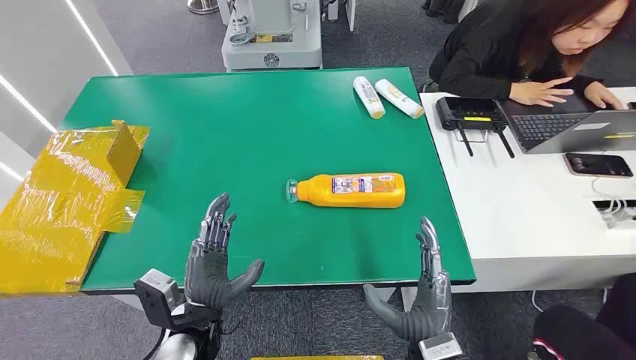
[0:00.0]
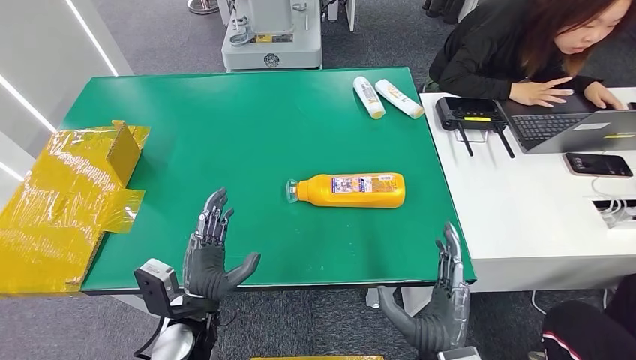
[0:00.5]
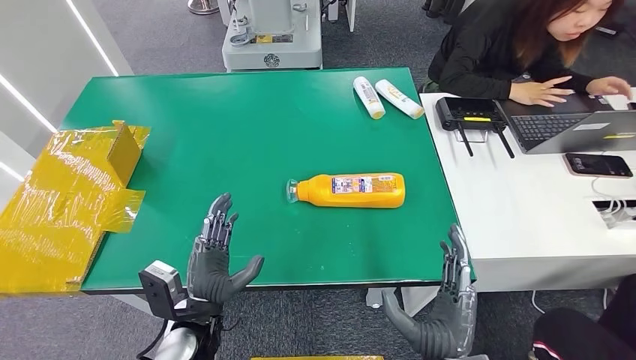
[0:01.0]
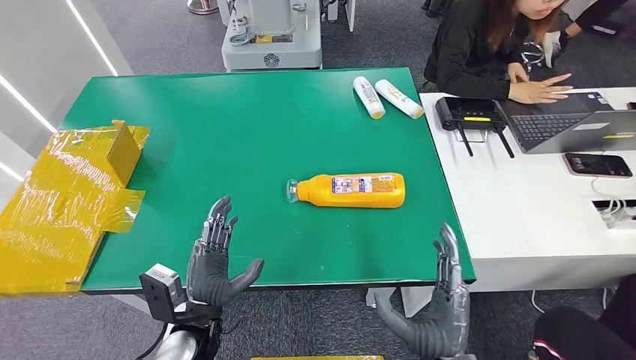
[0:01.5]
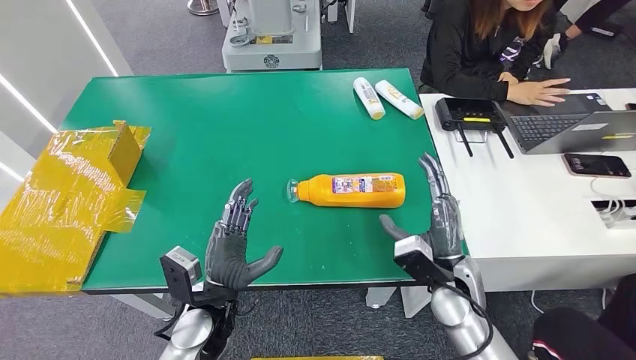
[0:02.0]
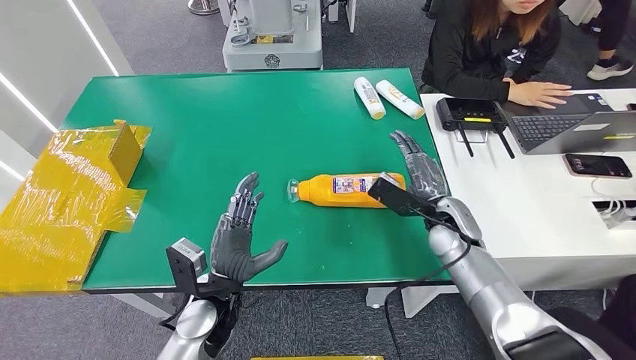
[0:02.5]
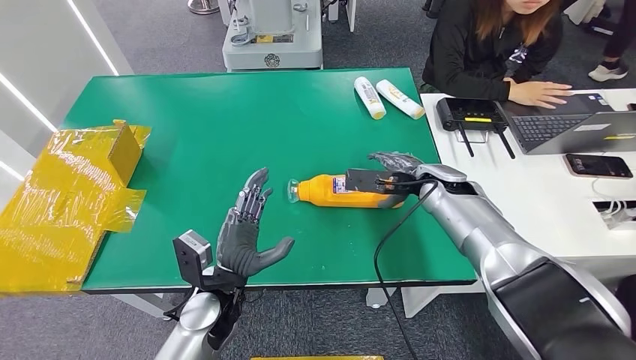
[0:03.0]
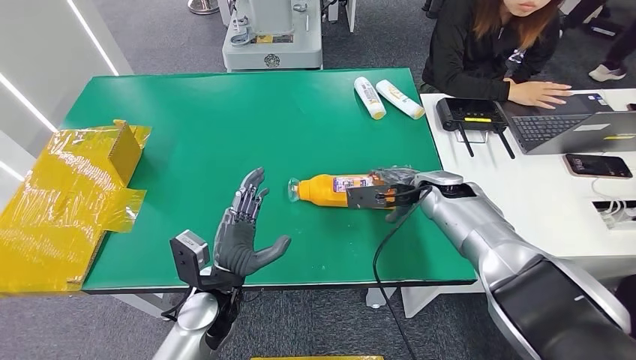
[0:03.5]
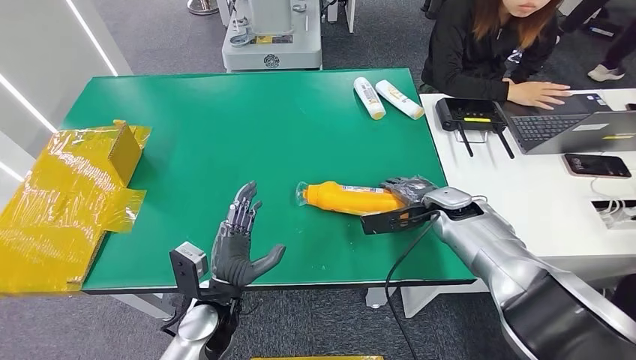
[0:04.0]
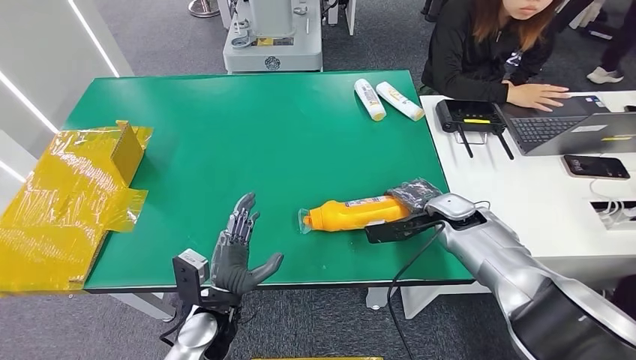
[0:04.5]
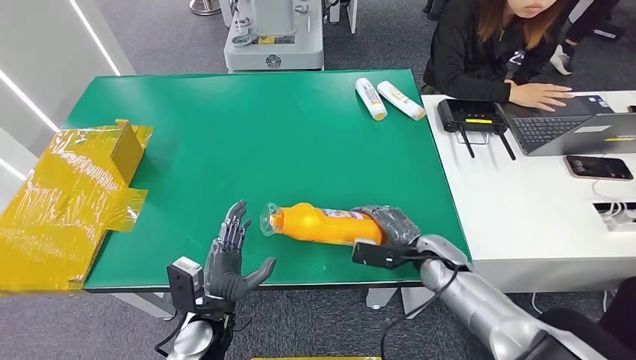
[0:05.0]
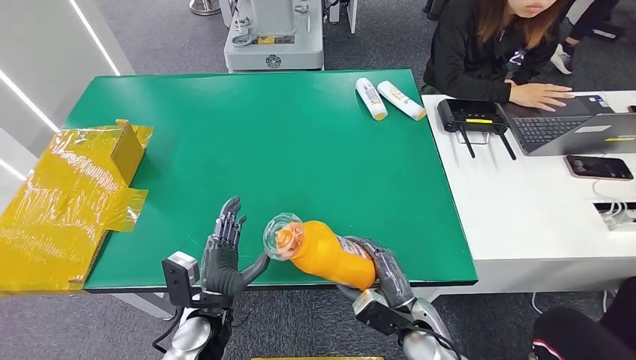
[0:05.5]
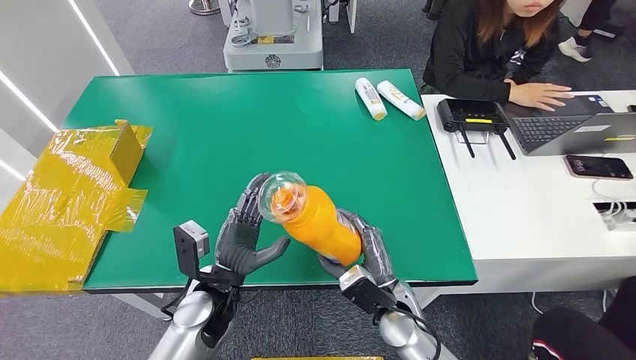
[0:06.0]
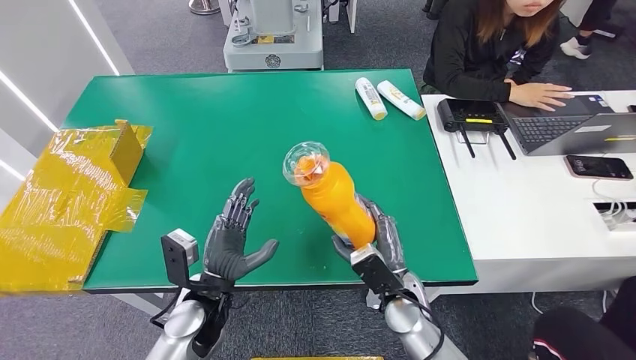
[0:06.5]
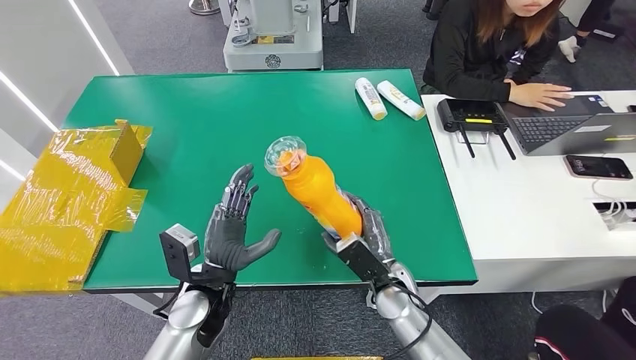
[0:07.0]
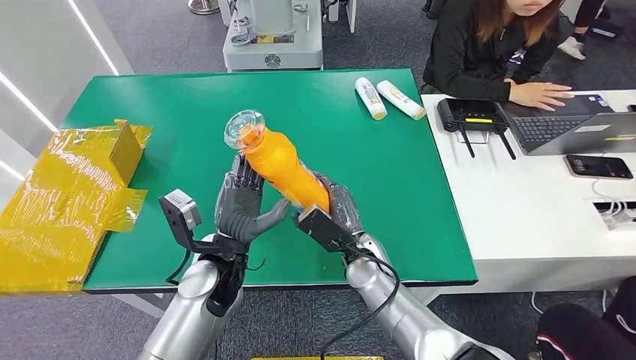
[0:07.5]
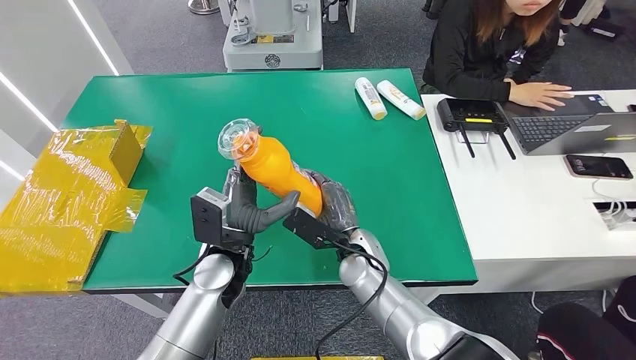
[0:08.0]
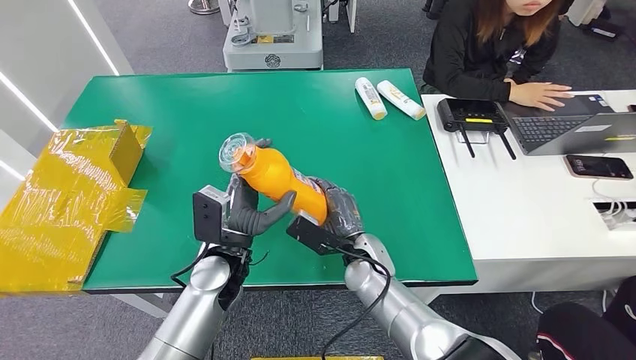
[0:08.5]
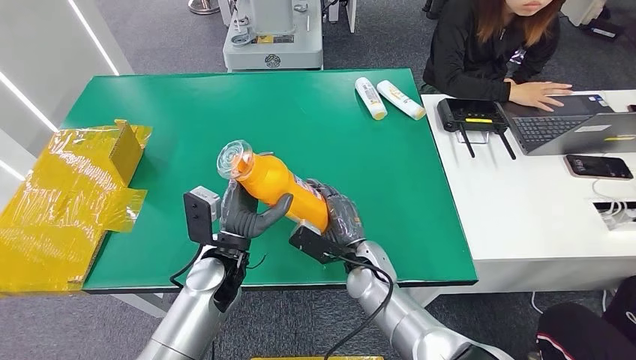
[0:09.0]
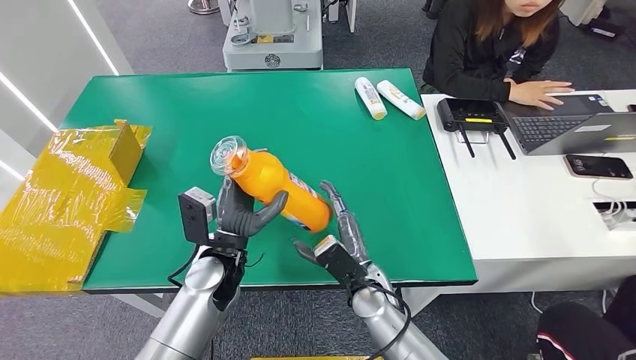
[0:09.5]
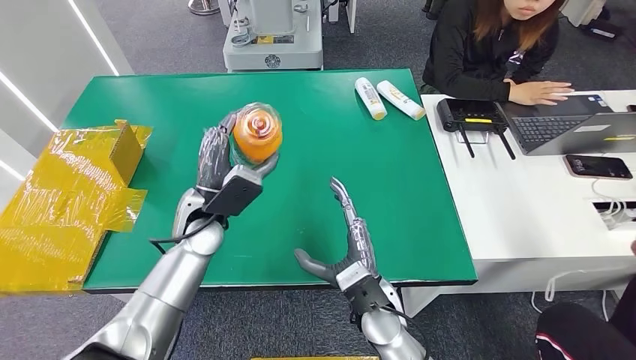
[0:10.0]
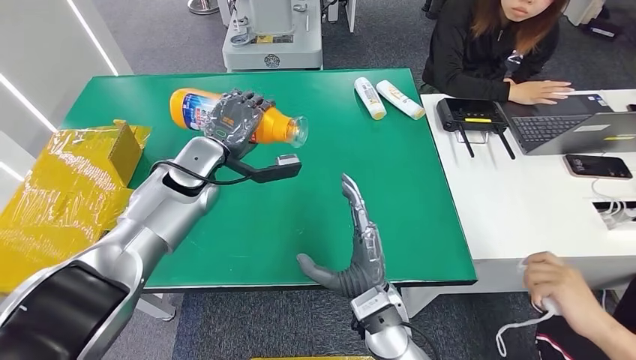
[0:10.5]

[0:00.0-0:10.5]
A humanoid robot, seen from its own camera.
Step, 0:00.0 to 0:05.5: Pick up the bottle from the table.
0:02.0 to 0:04.0: The right hand travels forward by some 15 cm.
0:06.5 to 0:08.5: The left hand shifts some 5 cm forward. Meanwhile the right hand shifts some 10 cm to the left and forward.

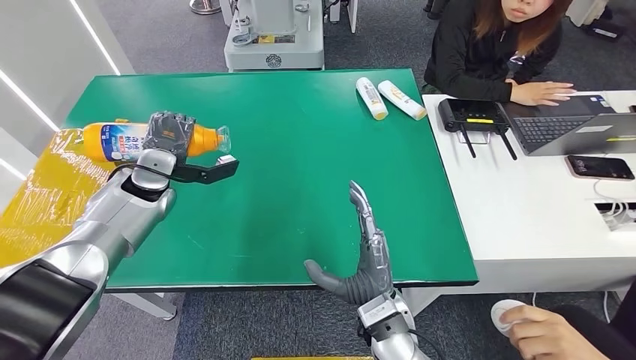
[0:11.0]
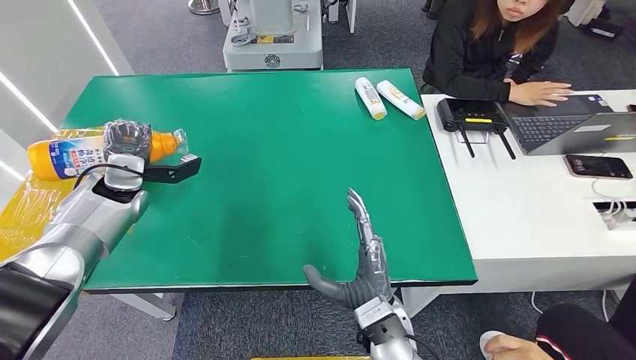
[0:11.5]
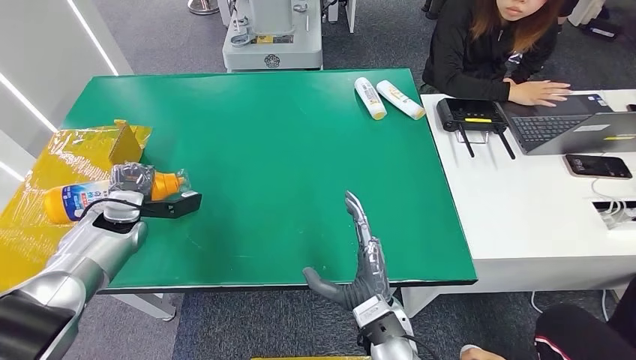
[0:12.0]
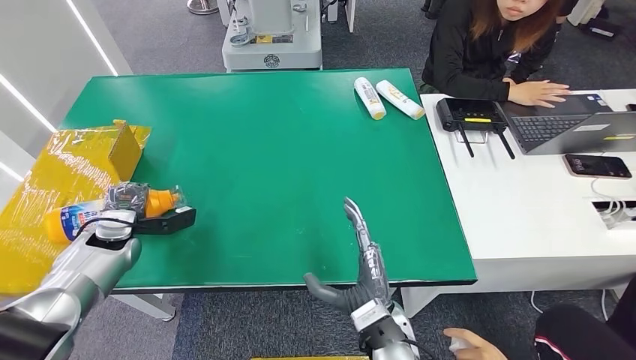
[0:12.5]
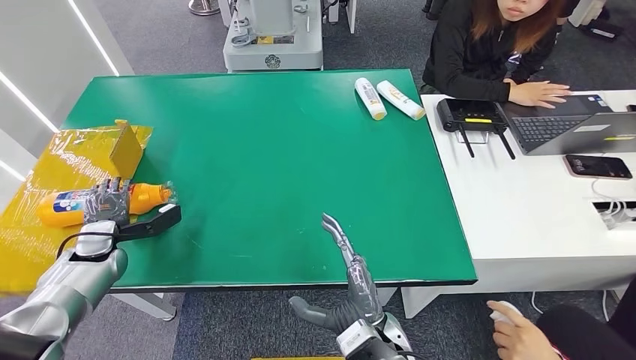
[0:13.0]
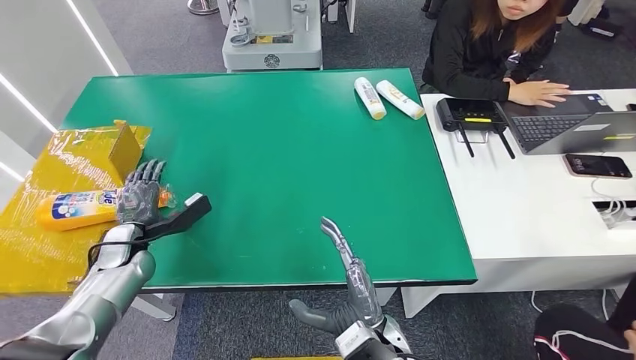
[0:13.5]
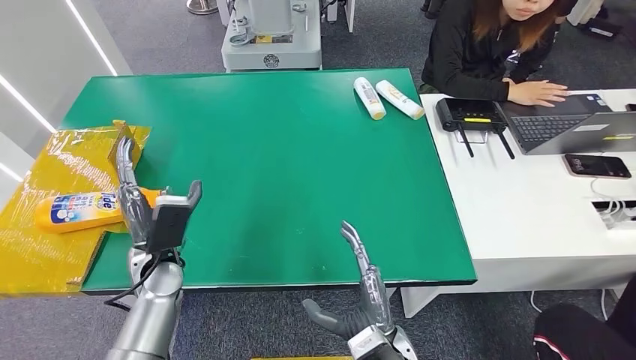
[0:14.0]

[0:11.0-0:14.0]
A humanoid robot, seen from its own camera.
Step, 0:11.0 to 0:14.0: Turn the bottle to the front side.
0:12.5 to 0:14.0: The left hand shifts some 15 cm to the right and backward.

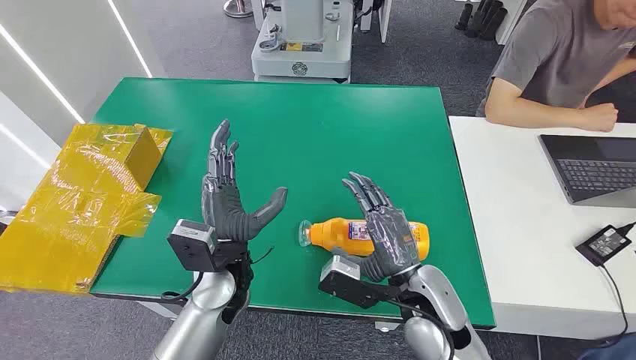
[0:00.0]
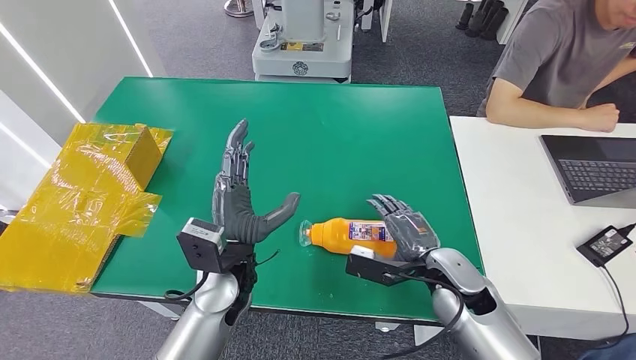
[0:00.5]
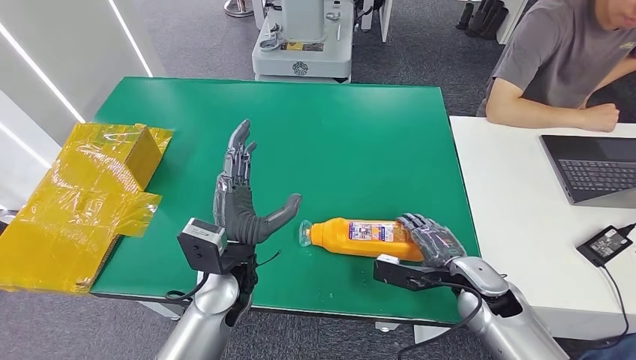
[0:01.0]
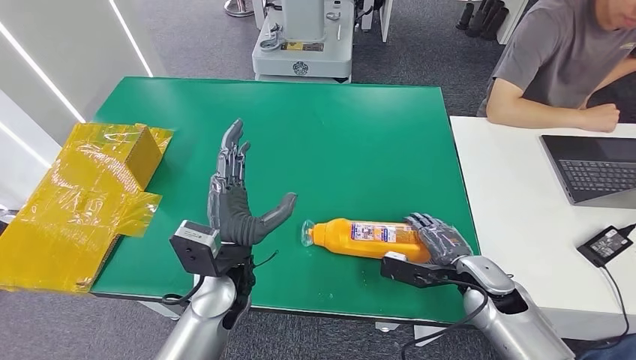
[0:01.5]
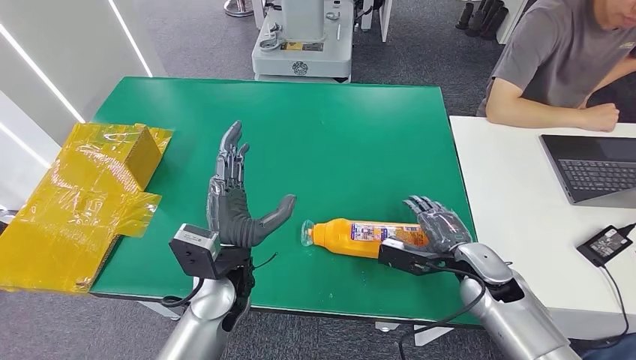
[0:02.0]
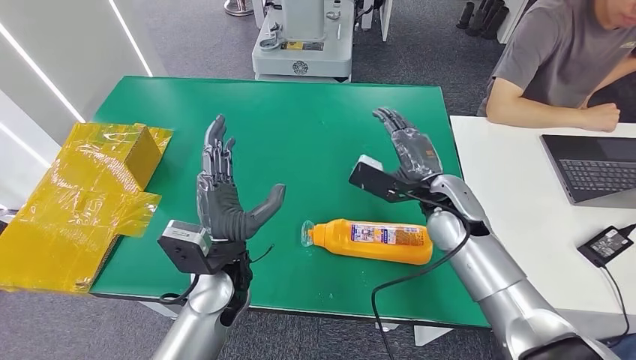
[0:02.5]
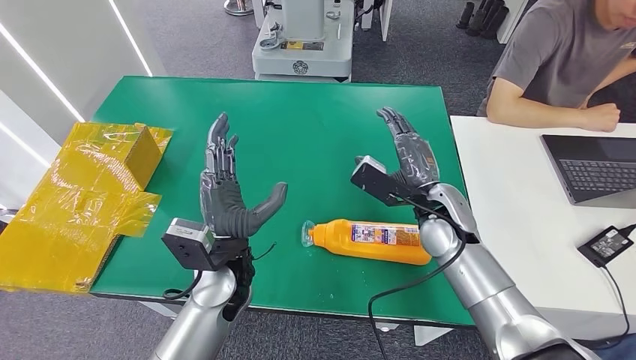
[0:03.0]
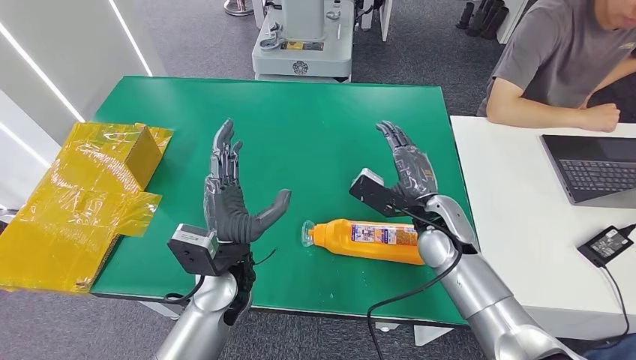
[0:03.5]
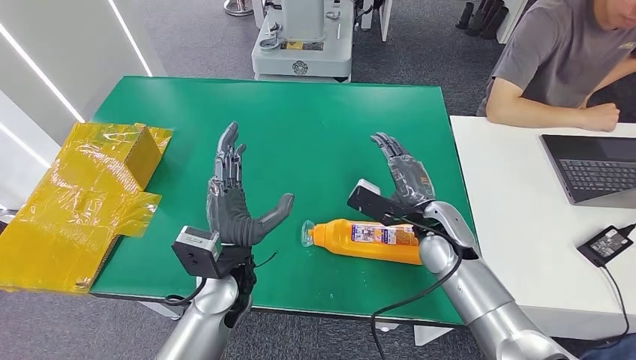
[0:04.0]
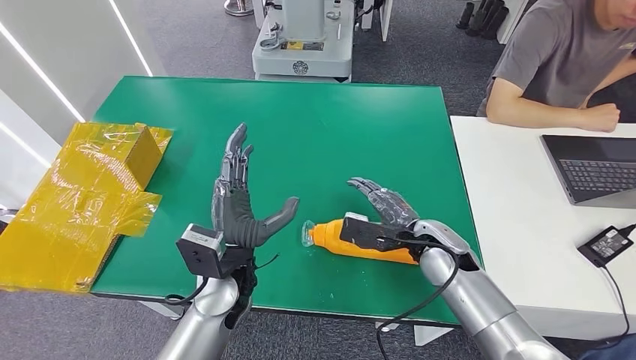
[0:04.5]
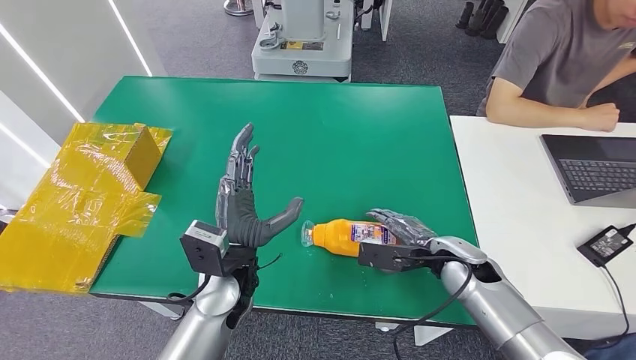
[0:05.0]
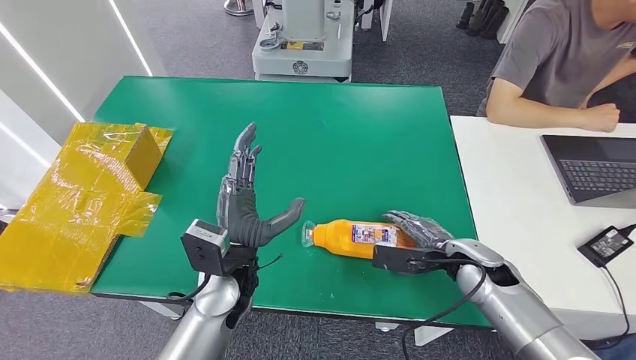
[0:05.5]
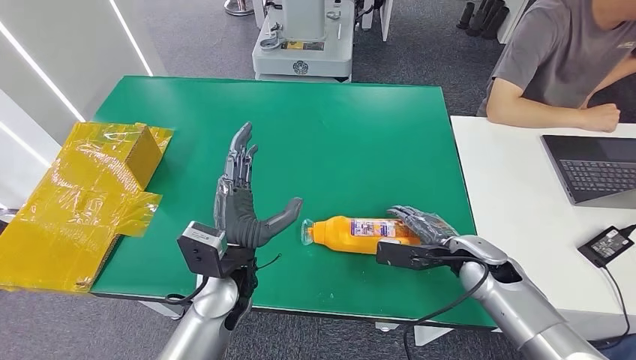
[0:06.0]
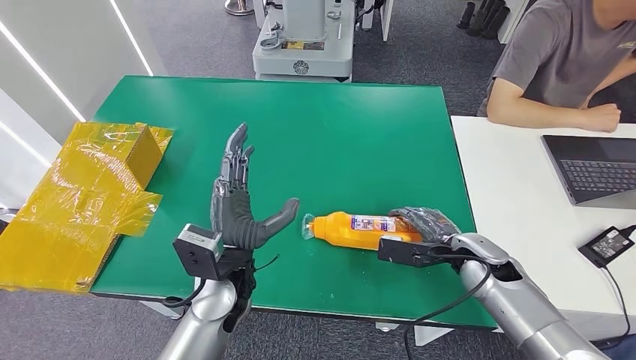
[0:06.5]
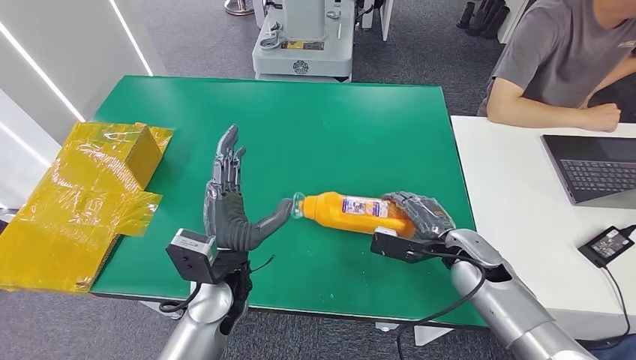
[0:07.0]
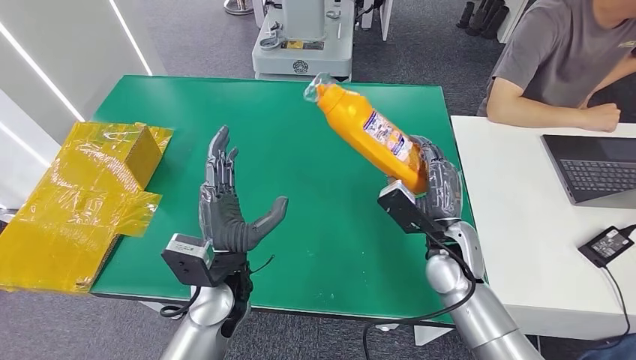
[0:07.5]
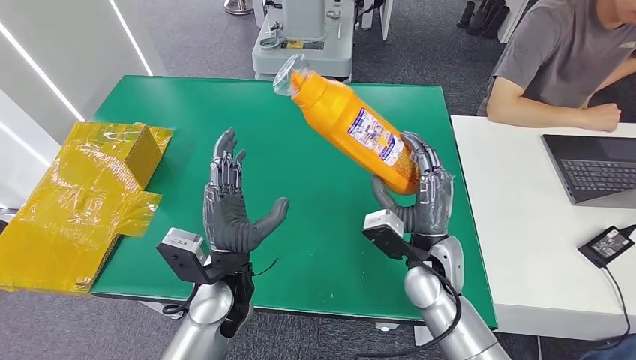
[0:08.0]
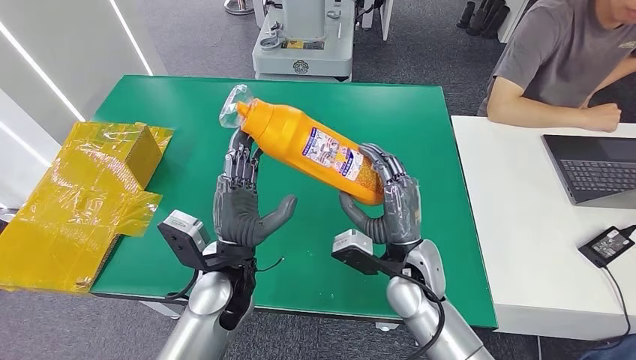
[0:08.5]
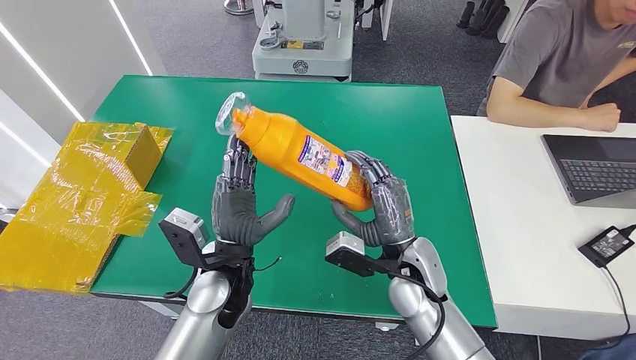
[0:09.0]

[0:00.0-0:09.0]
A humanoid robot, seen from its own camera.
Step, 0:00.0 to 0:07.5: Pick up the bottle from the table.
0:02.0 to 0:04.5: The right hand shifts approximately 10 cm to the left, and moves roughly 10 cm upward and comes back.
0:04.5 to 0:07.0: The right hand travels to the right by roughly 5 cm.
0:07.0 to 0:09.0: The right hand heads to the left, covering approximately 15 cm.
